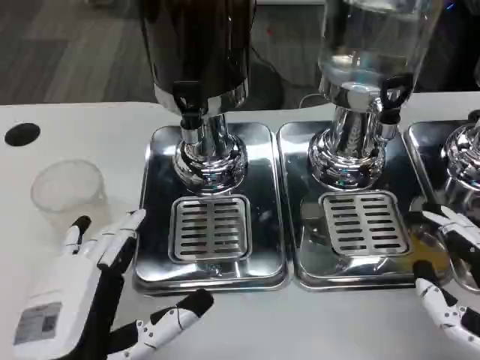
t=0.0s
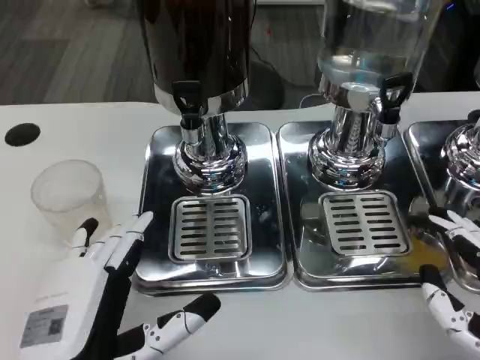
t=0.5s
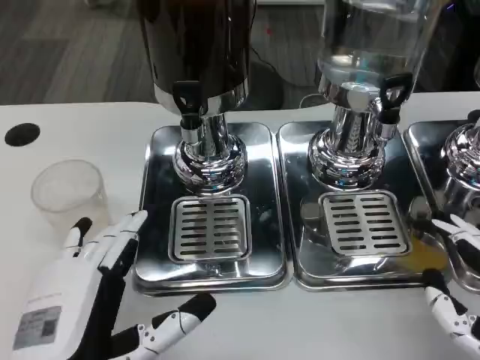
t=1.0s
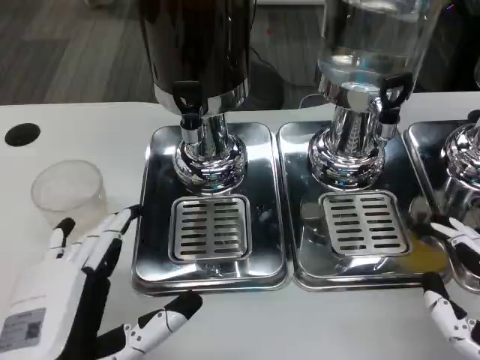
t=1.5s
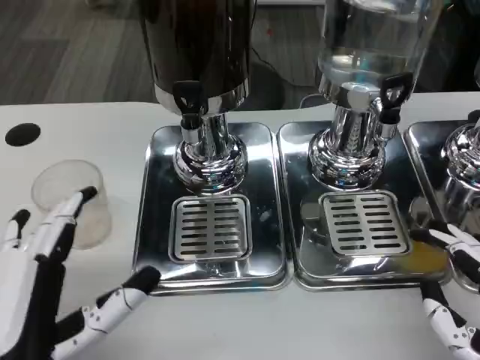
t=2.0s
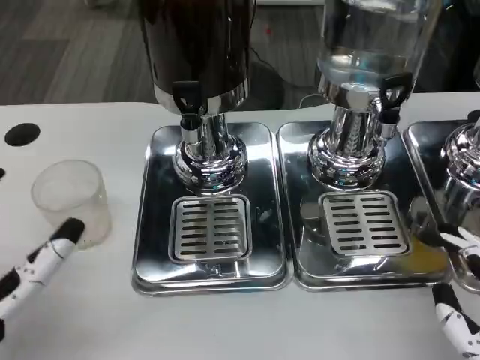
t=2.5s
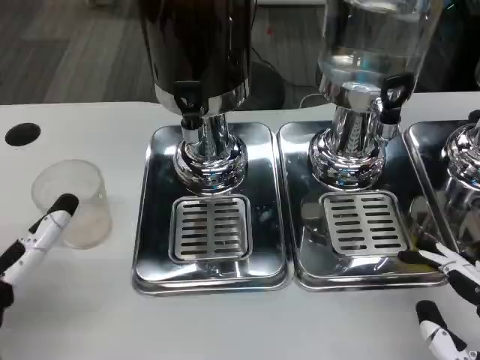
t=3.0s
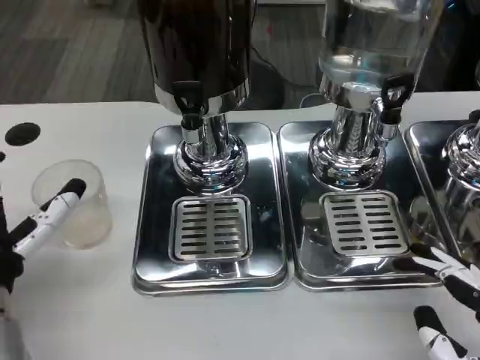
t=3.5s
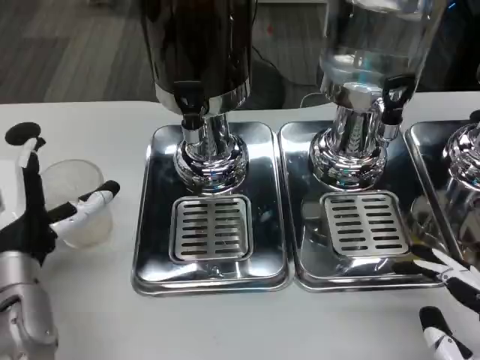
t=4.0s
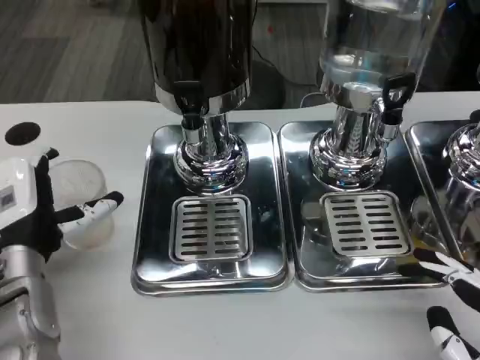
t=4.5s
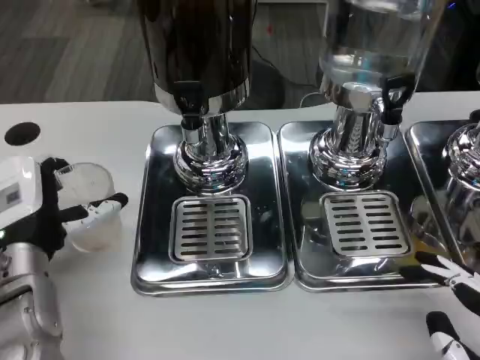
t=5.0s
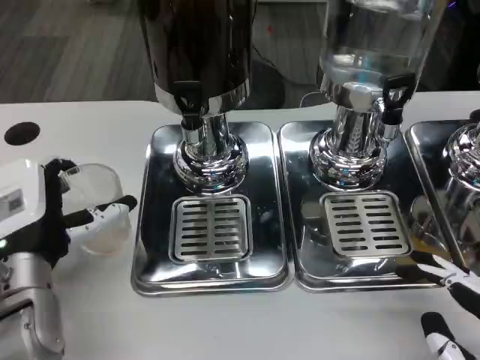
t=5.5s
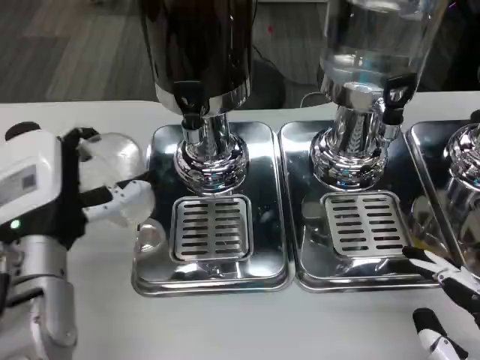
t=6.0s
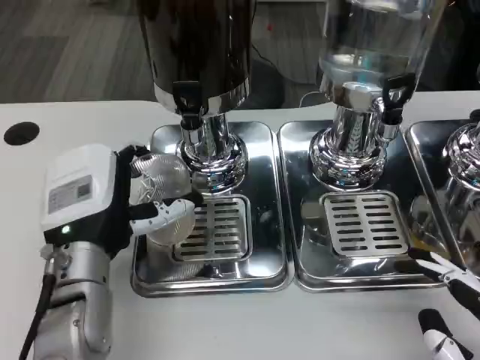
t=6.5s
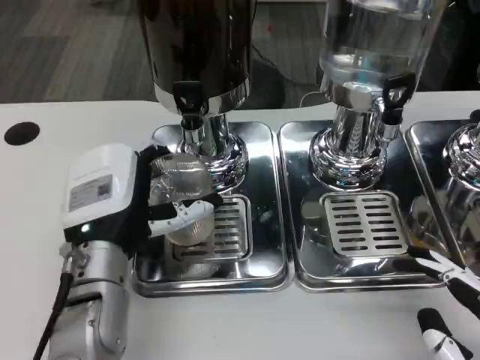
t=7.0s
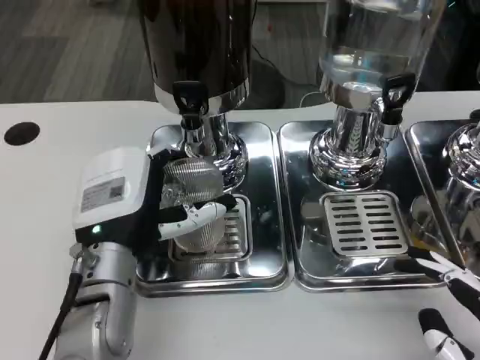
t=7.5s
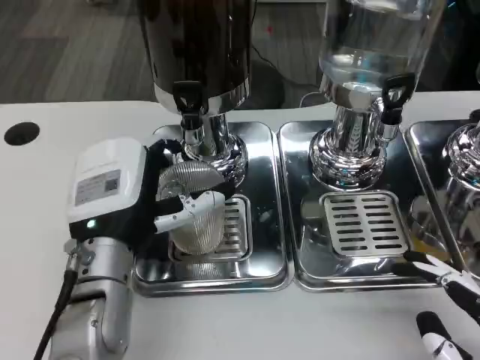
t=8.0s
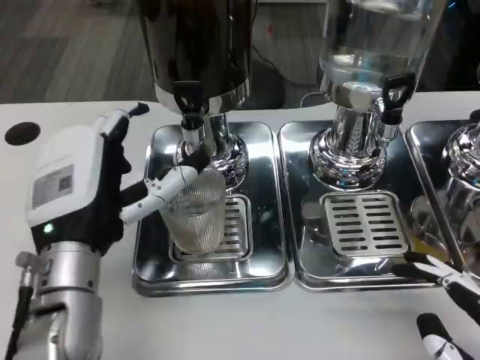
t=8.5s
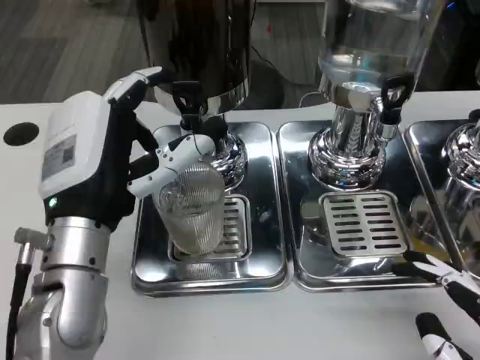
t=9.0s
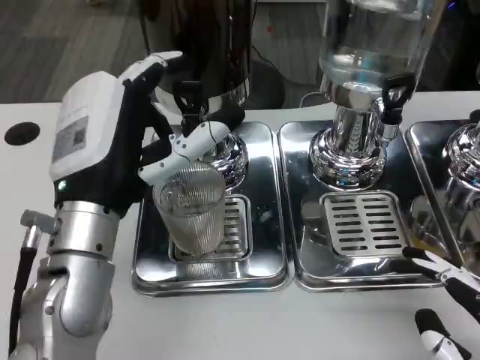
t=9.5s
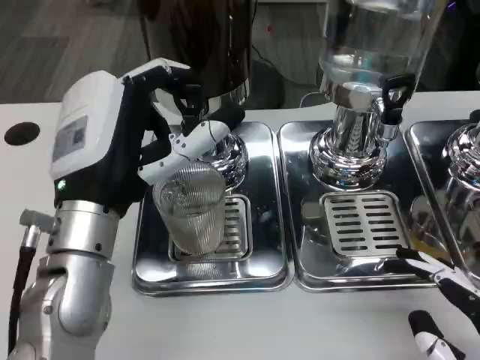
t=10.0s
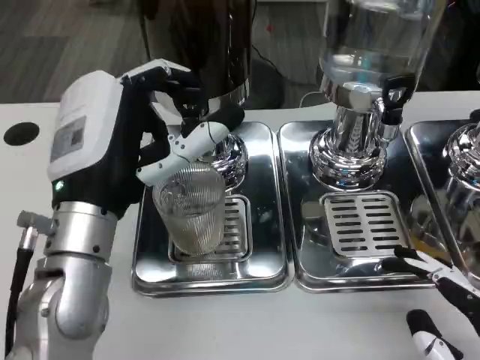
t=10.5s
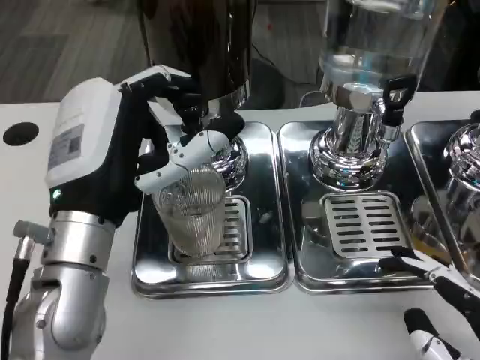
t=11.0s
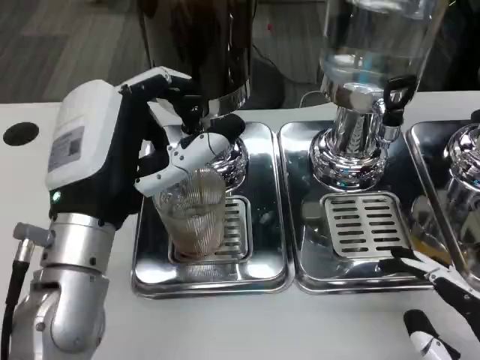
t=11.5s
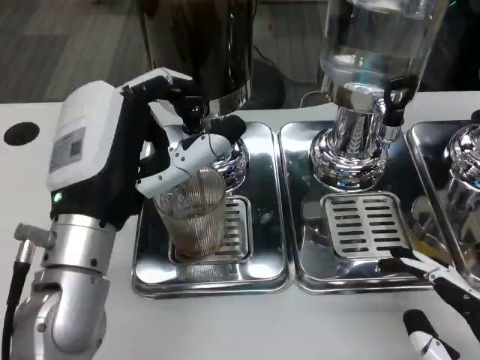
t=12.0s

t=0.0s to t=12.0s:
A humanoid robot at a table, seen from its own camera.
Task of the whole recording: Grasp the cup under the faucet to collect the drink, then remove the cup.
t=0.0s to t=2.0s: The hands stay close to where they were, moving slightly.
t=2.0s to t=4.0s: The left hand goes some 15 cm forward.
t=4.0s to t=6.0s: The hands make only small movements.
t=8.0s to t=10.0s: The left hand is displaced upward by about 5 cm.

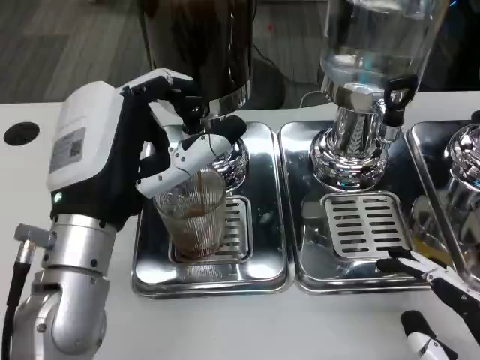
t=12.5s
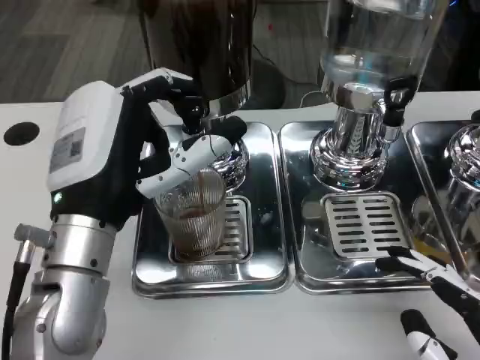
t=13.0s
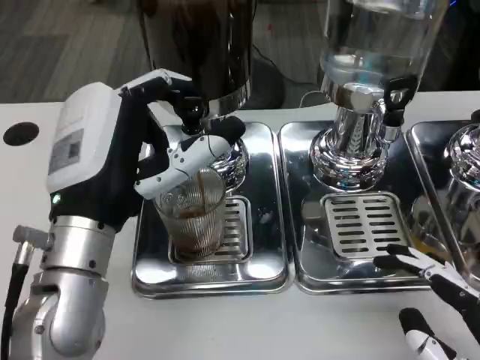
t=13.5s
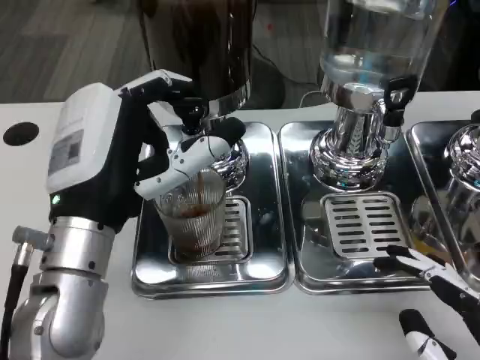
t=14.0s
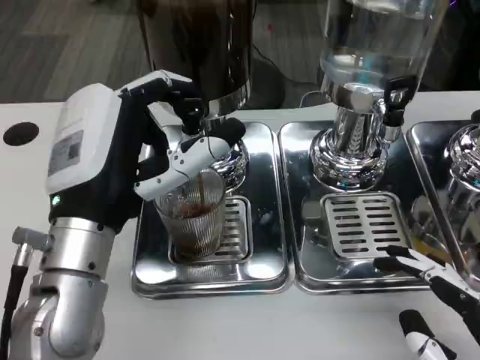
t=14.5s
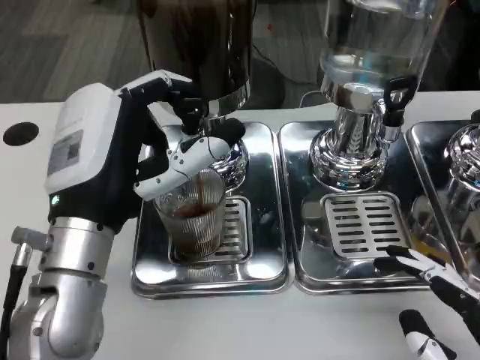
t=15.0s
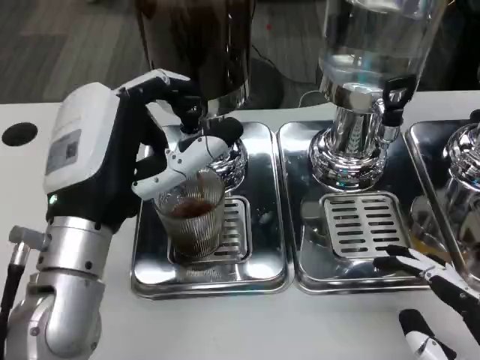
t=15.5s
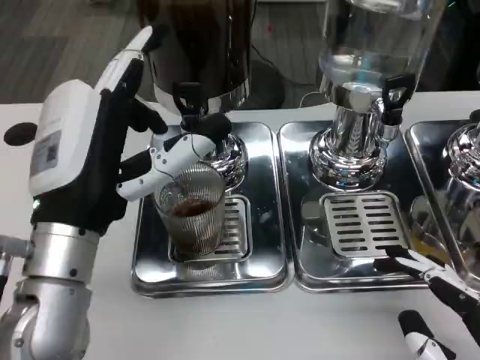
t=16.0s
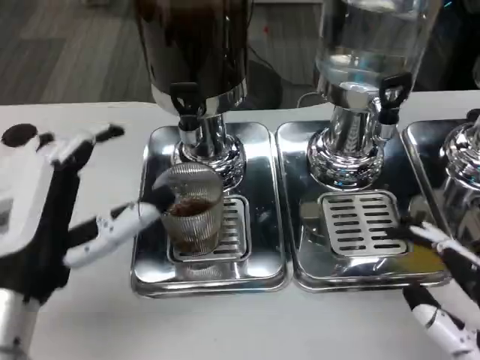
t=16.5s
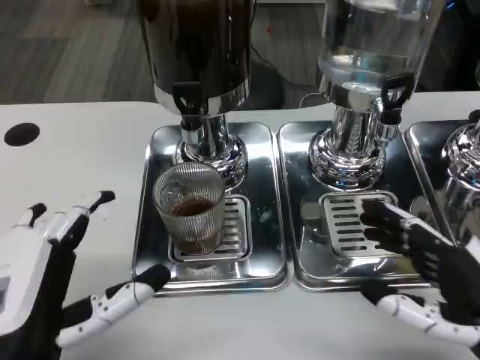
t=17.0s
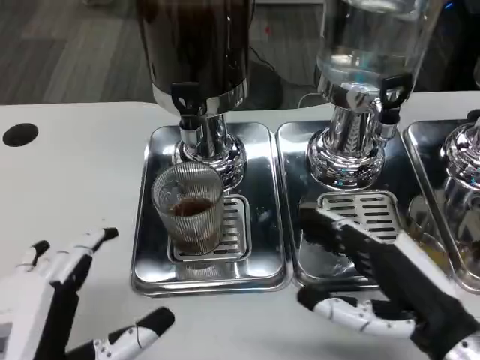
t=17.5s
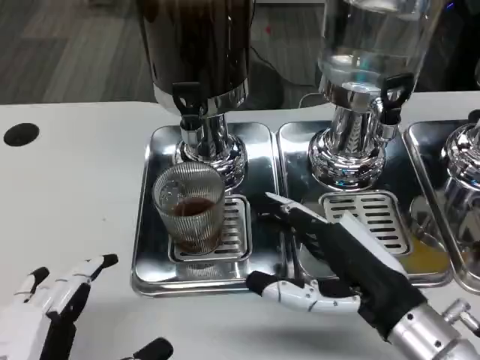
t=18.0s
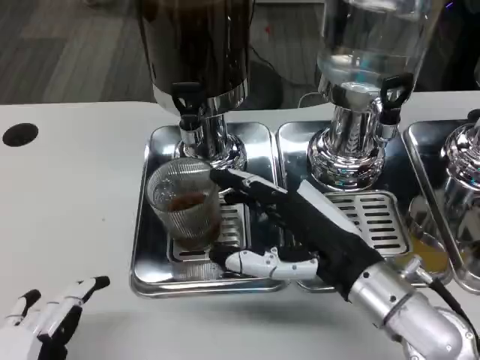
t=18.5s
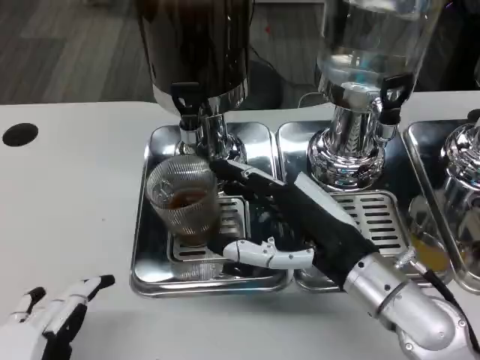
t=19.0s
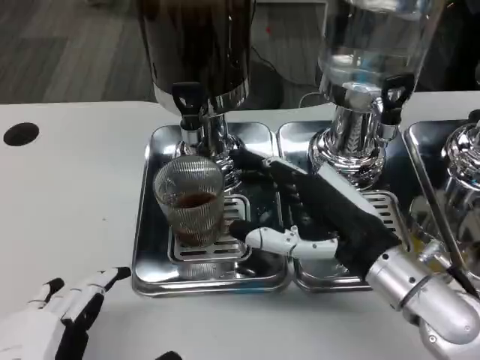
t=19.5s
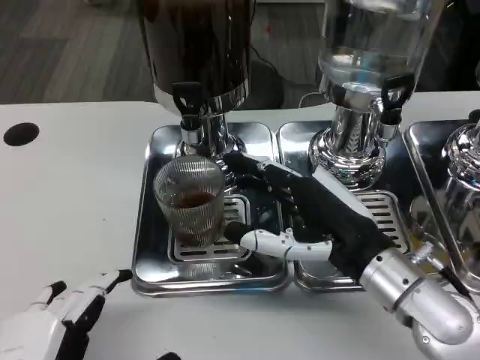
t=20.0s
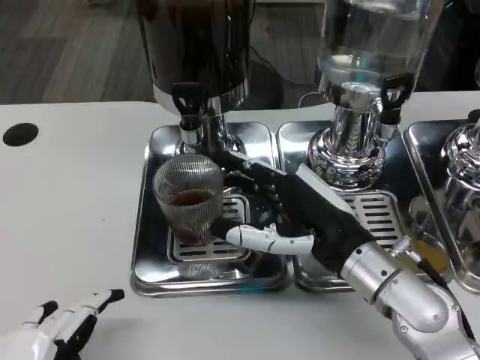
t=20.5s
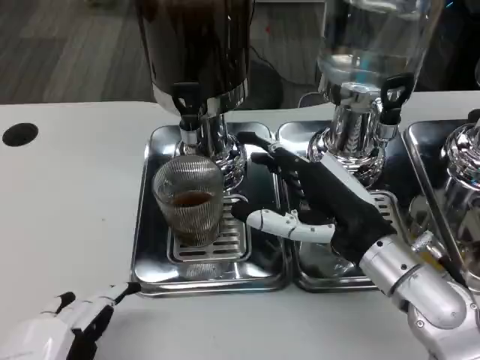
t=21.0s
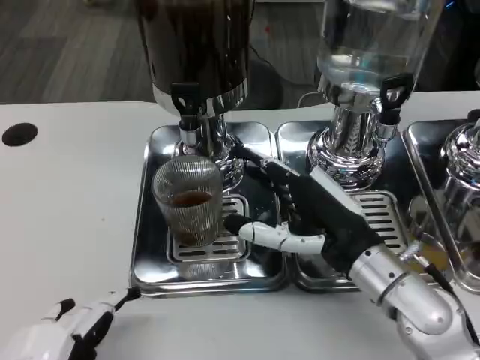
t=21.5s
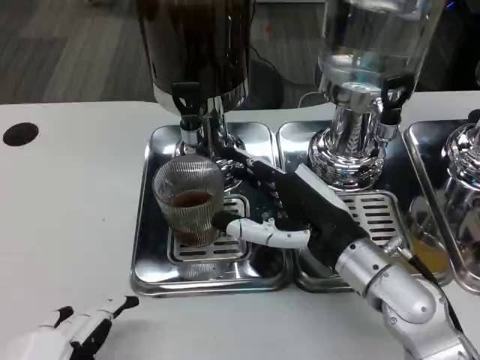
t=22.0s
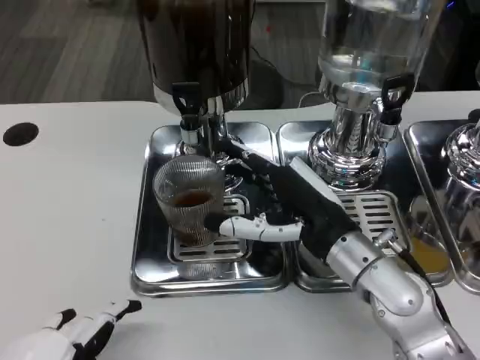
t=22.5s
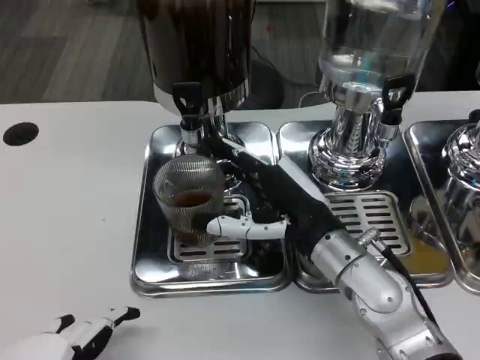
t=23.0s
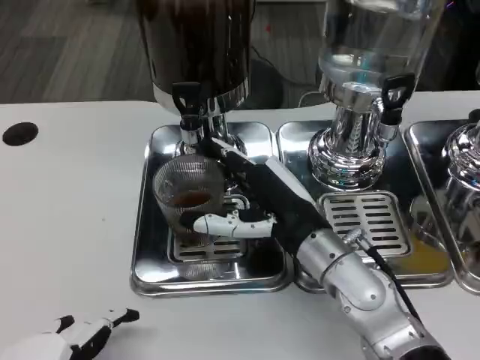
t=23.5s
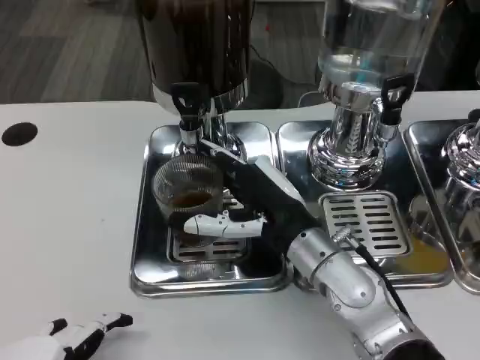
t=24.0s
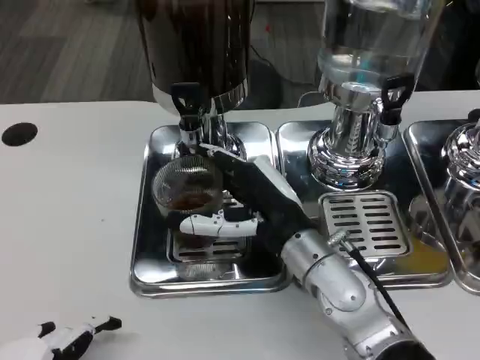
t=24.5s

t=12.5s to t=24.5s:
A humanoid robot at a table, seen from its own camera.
Task of the whole recording: Grasp the cup under the faucet to collect the drink, then remove the cup.
t=12.5s to t=14.5s: The two hands keep their place.
t=14.5s to t=16.5s: The left hand goes about 5 cm backward and to the left.
t=16.5s to t=18.5s: The right hand travels forward and to the left by some 15 cm; the left hand heads backward, covering about 10 cm.
t=18.5s to t=22.5s: The hands stay close to where they were, moving slightly.
t=22.5s to t=24.5s: The right hand ends up roughly 5 cm from where it was.

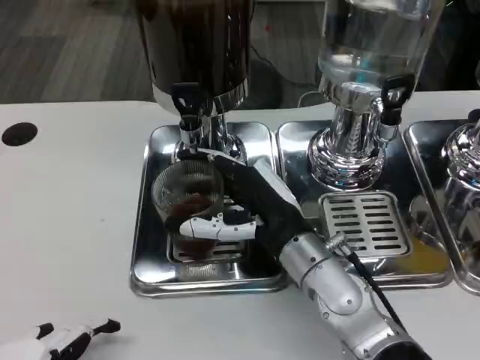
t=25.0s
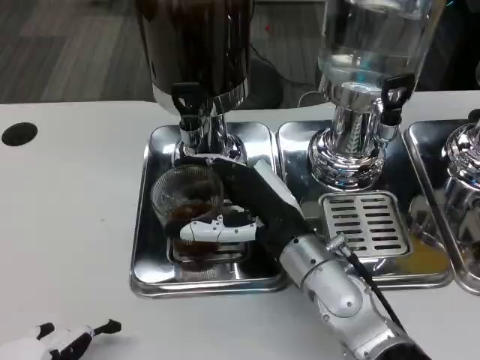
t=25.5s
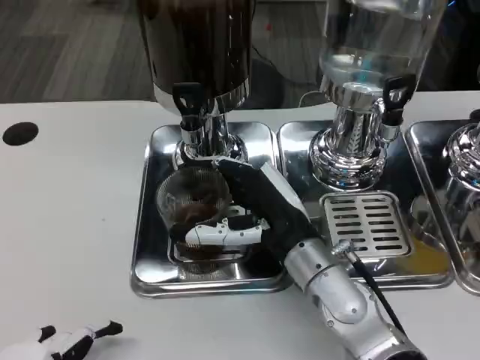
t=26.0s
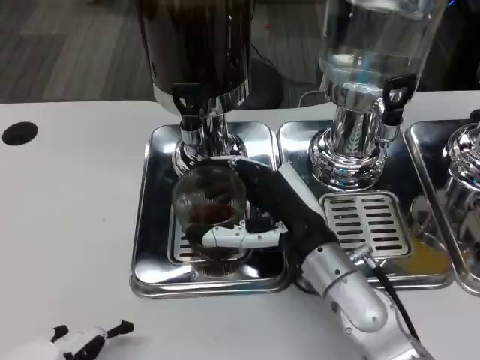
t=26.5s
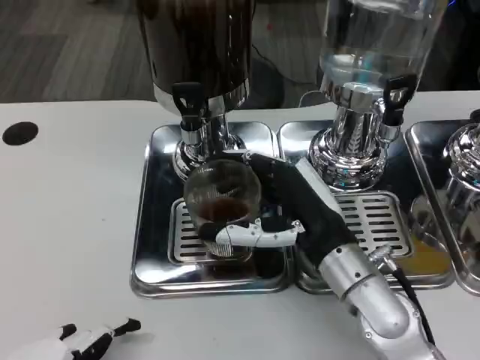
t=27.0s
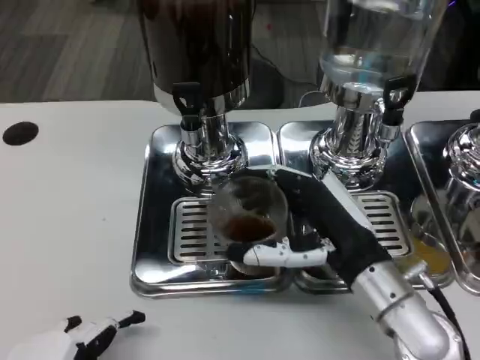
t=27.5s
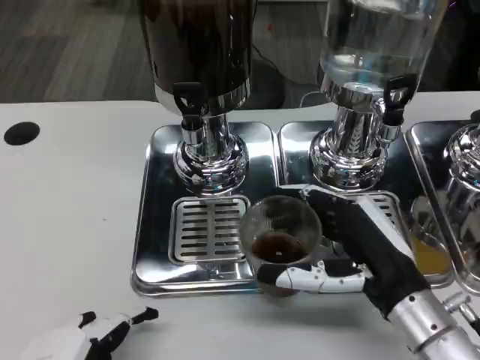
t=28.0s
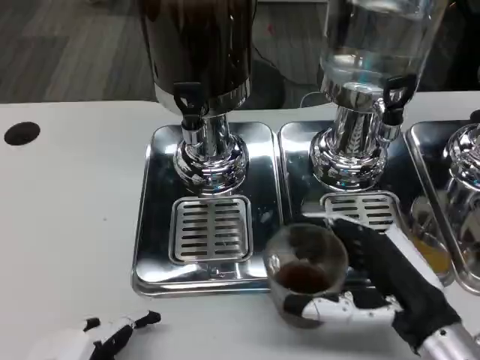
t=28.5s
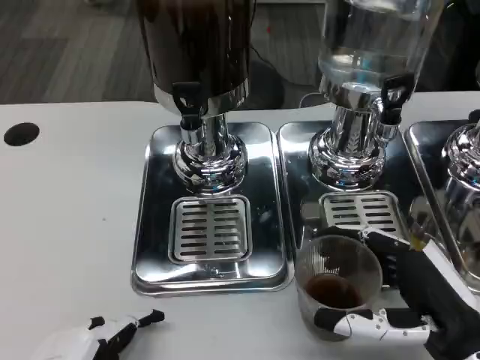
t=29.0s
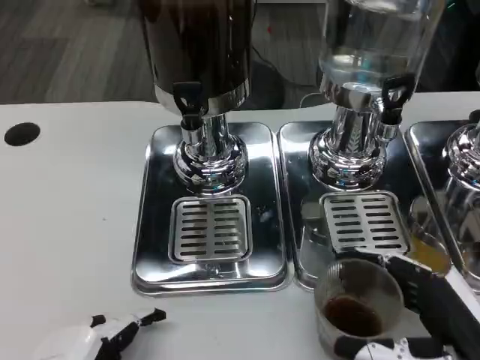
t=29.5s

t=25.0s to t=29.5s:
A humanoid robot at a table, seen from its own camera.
Task of the whole recording: Grasp the cup under the faucet to collect the drink, then remove the cup.
t=27.0s to t=29.5s: The right hand heads backward and to the right, covering approximately 20 cm.
